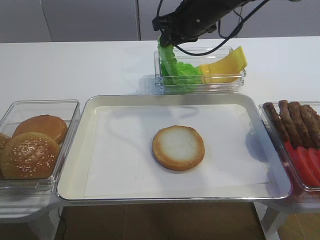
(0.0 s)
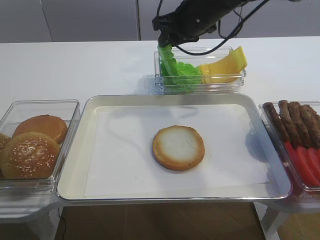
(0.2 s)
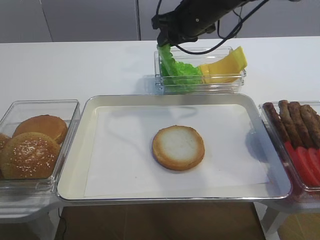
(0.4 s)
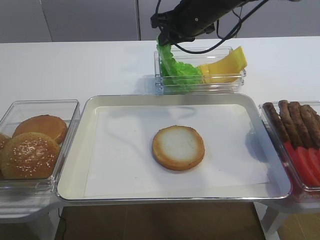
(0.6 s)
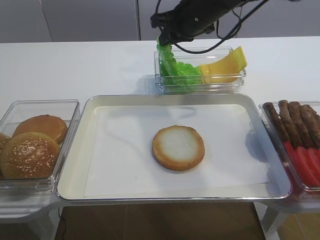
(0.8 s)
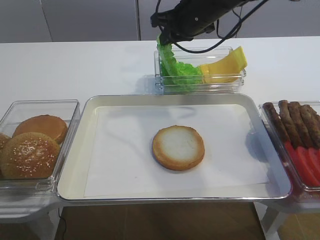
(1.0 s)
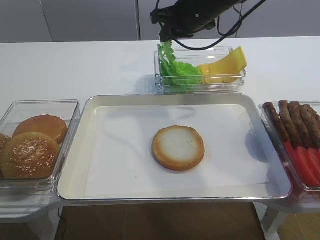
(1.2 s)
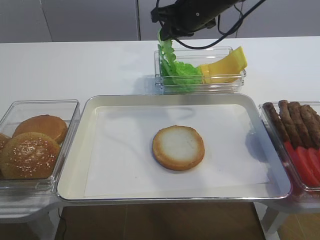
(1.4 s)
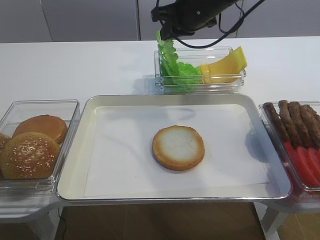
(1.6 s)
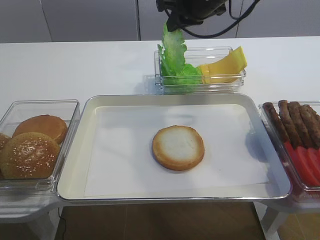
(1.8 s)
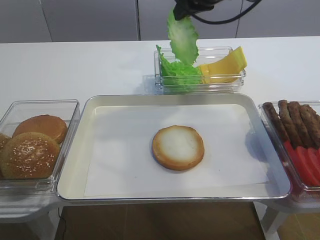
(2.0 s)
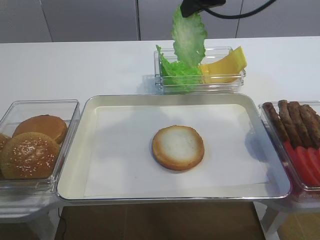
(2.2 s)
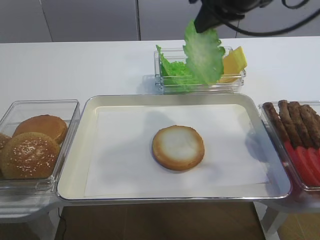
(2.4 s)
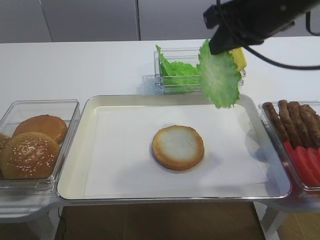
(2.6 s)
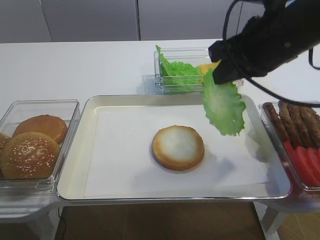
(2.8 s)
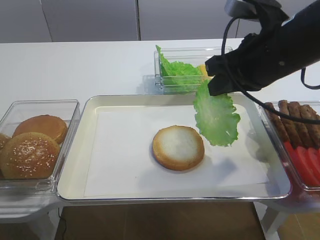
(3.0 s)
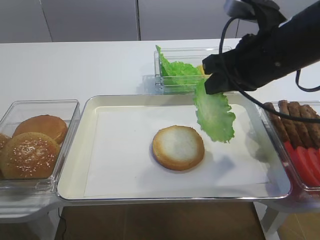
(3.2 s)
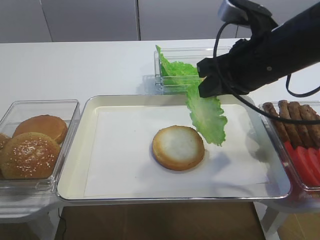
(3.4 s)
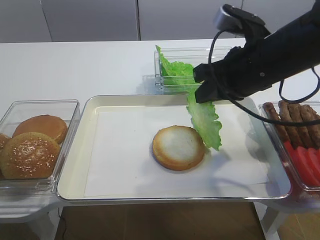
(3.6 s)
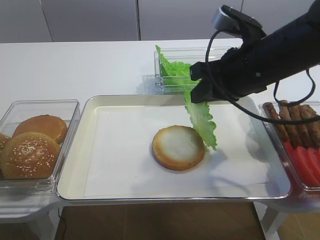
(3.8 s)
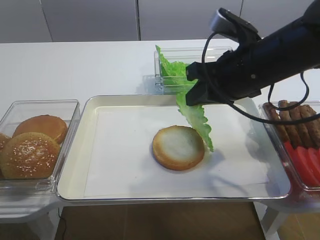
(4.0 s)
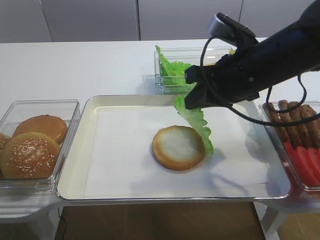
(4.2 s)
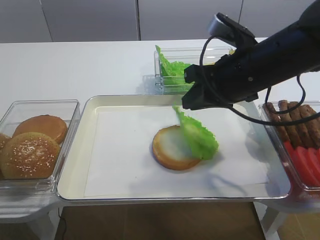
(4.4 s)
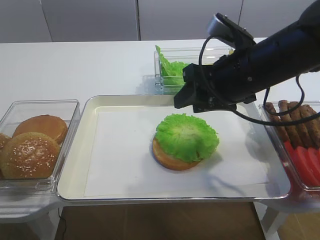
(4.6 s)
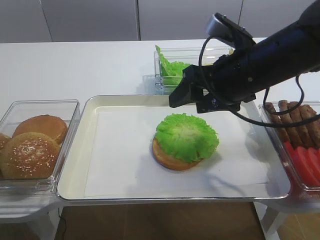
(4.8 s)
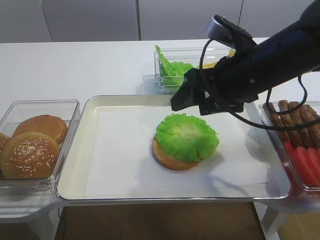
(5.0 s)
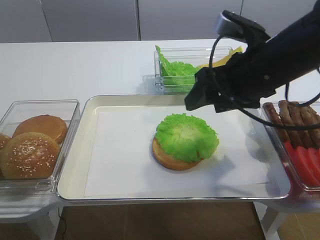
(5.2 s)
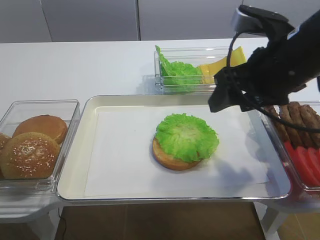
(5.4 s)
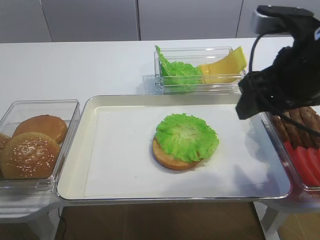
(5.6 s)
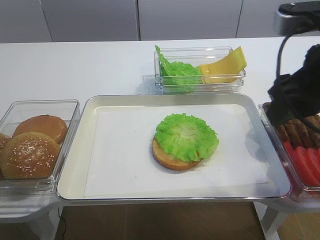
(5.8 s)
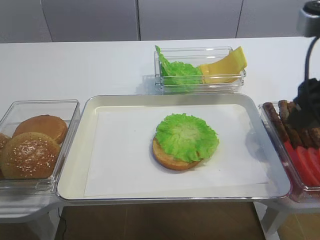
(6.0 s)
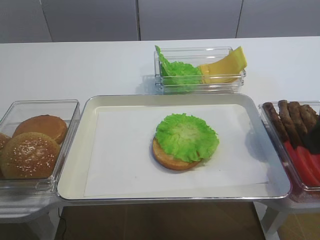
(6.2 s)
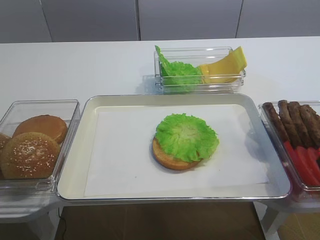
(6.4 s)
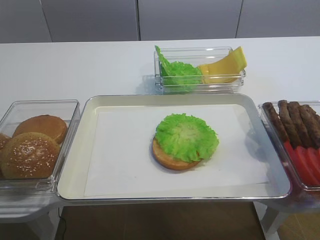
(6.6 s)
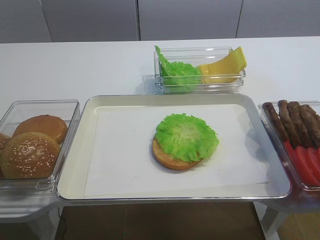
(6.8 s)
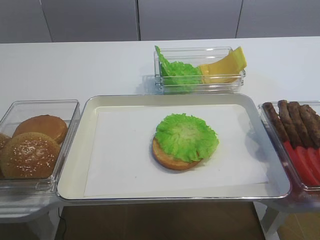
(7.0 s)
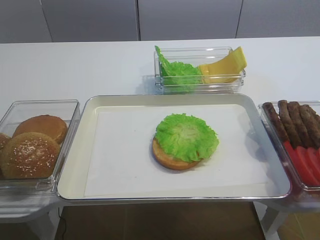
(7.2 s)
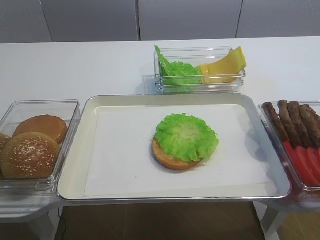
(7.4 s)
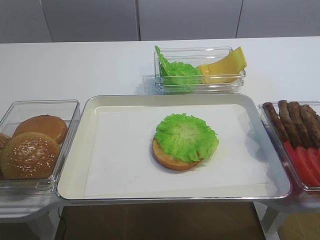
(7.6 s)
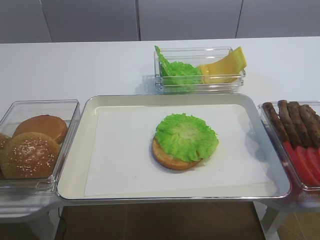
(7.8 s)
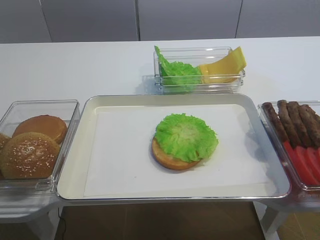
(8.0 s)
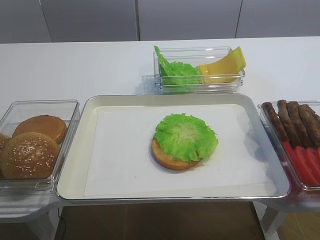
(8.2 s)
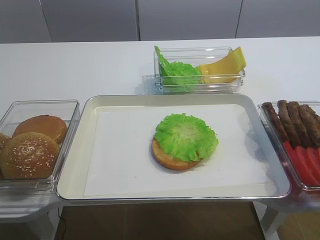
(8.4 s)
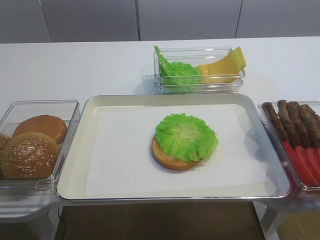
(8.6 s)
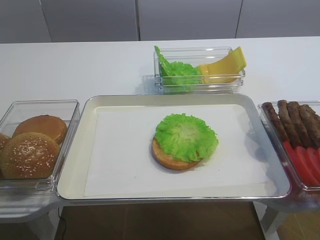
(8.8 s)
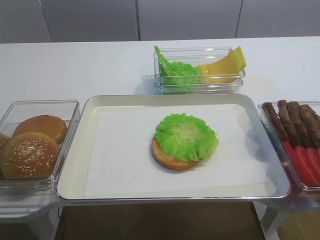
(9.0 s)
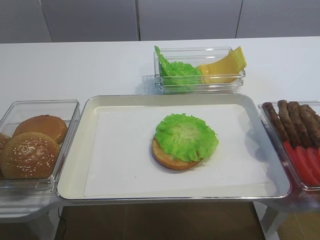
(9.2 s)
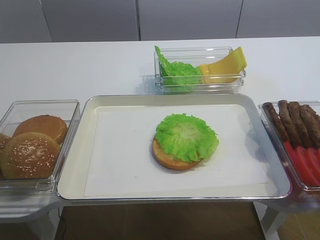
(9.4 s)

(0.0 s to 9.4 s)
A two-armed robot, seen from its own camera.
Step, 0.0 s - 2.0 s: Pick up the lettuce leaf with the right gripper.
Step, 2.2 s - 4.8 s: Place the lettuce leaf on the bread slice with the right gripper.
0.0 s - 1.6 s: There are only small adjustments of the grippers.
1.6 s - 3.2 s: The right gripper heads backward, covering roughly 15 cm.
3.2 s - 4.8 s: The right gripper opens.
4.8 s - 6.2 s: The right gripper travels backward, to the right and upward by approximately 15 cm.
6.2 s - 7.8 s: The right gripper travels backward by some 15 cm.

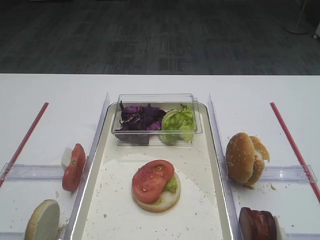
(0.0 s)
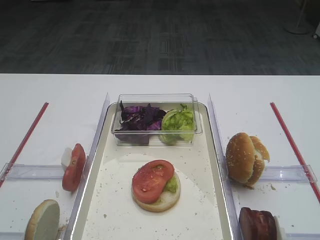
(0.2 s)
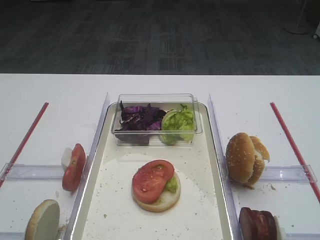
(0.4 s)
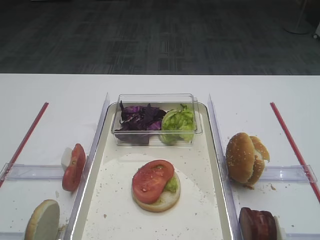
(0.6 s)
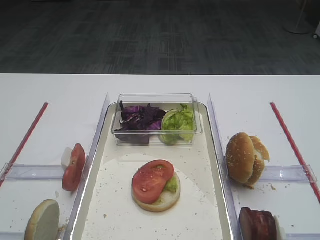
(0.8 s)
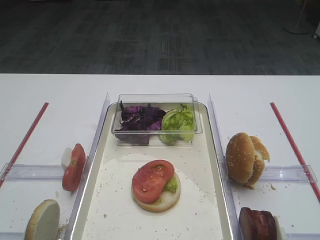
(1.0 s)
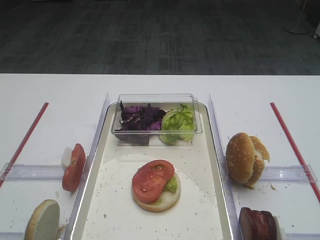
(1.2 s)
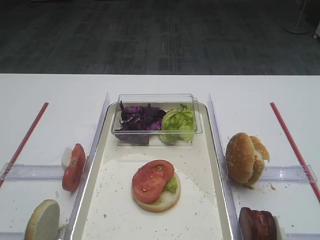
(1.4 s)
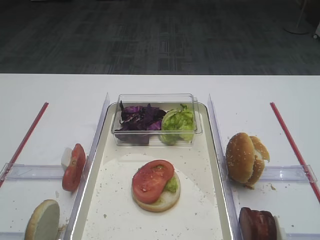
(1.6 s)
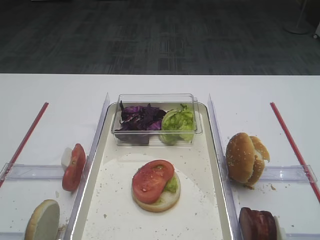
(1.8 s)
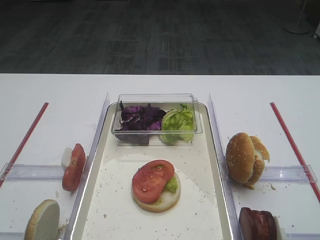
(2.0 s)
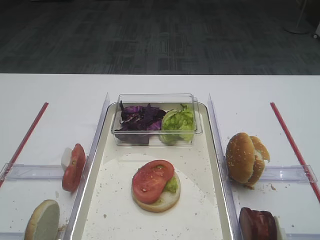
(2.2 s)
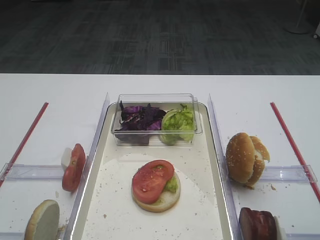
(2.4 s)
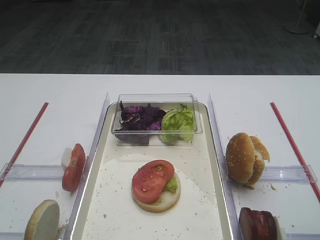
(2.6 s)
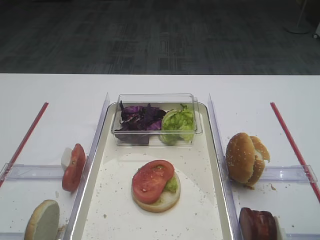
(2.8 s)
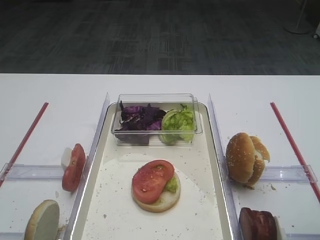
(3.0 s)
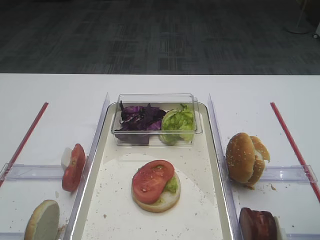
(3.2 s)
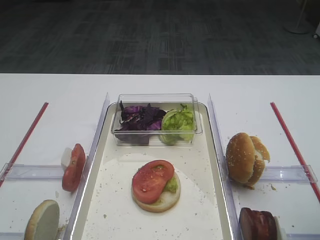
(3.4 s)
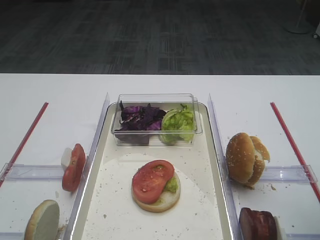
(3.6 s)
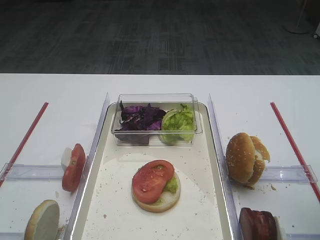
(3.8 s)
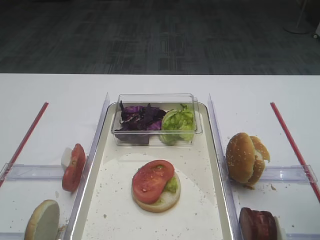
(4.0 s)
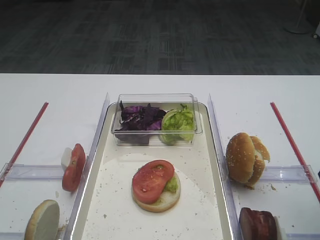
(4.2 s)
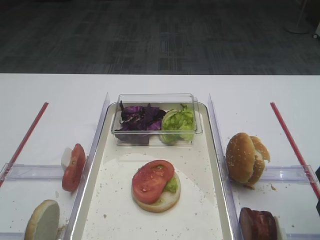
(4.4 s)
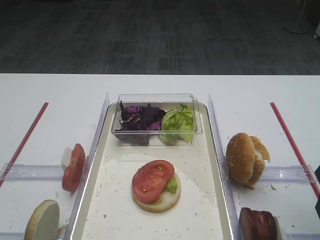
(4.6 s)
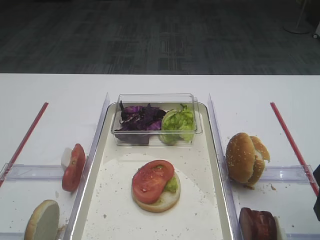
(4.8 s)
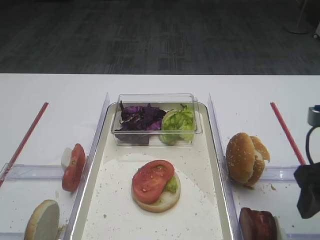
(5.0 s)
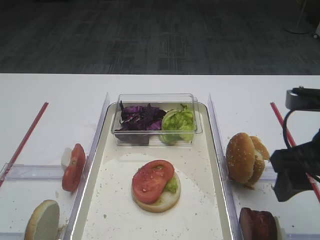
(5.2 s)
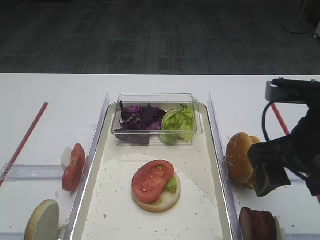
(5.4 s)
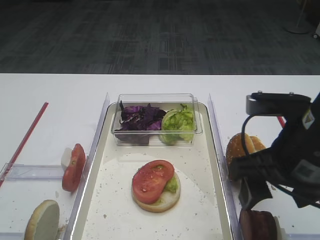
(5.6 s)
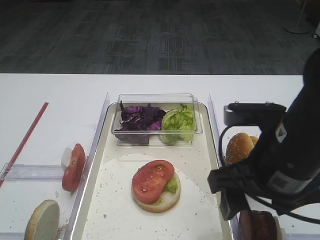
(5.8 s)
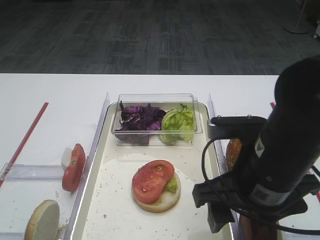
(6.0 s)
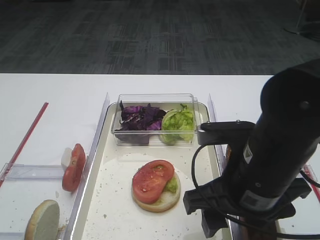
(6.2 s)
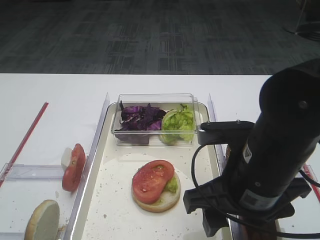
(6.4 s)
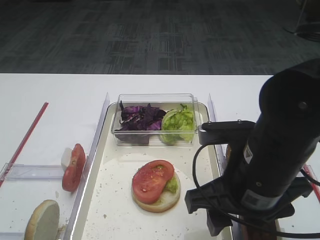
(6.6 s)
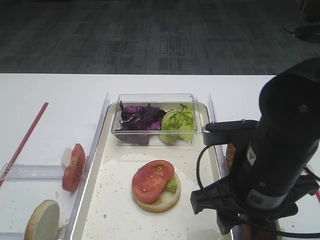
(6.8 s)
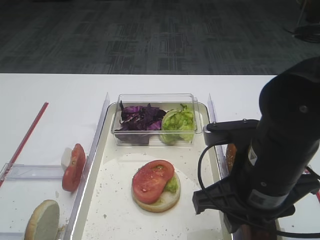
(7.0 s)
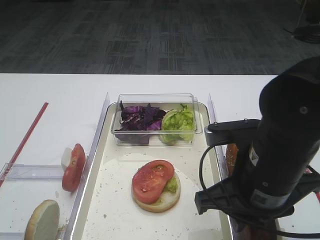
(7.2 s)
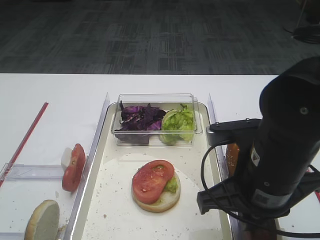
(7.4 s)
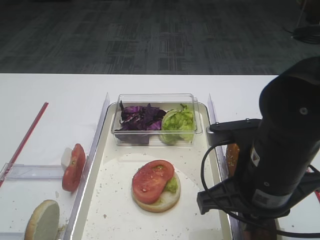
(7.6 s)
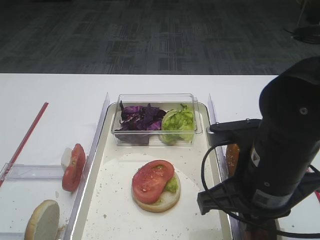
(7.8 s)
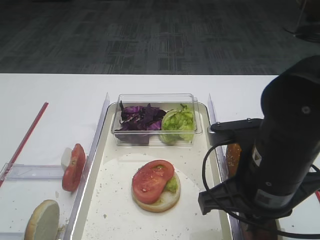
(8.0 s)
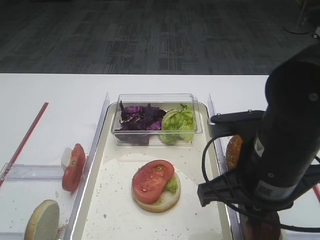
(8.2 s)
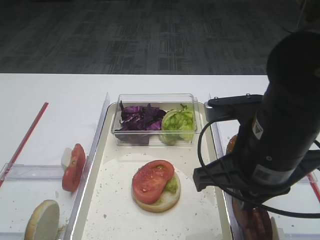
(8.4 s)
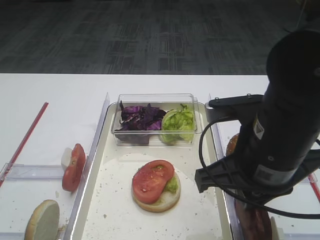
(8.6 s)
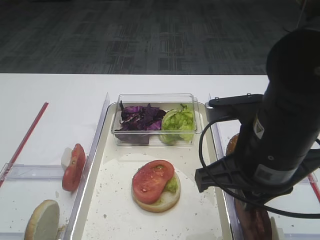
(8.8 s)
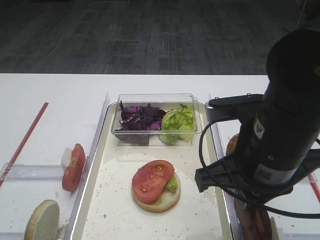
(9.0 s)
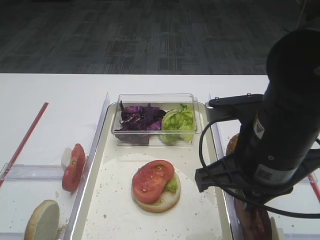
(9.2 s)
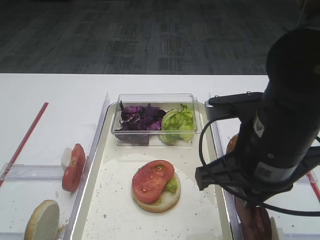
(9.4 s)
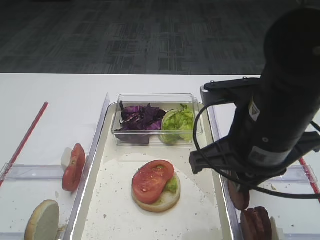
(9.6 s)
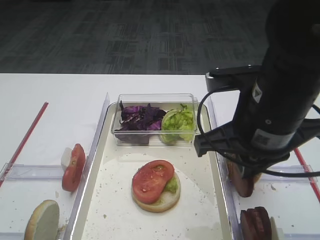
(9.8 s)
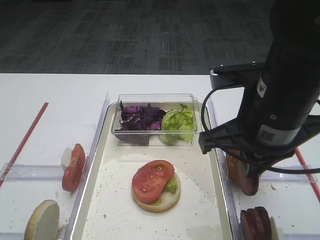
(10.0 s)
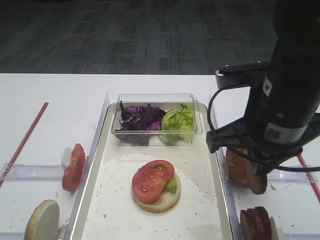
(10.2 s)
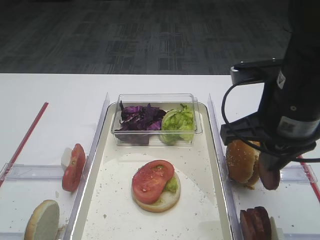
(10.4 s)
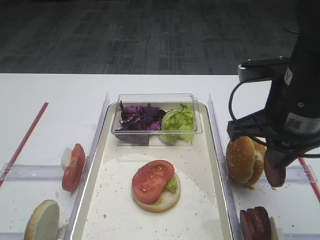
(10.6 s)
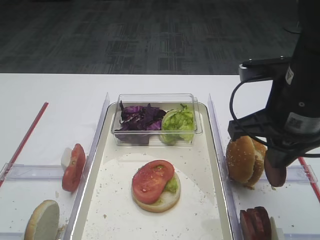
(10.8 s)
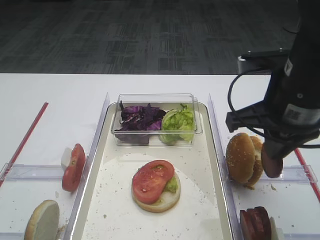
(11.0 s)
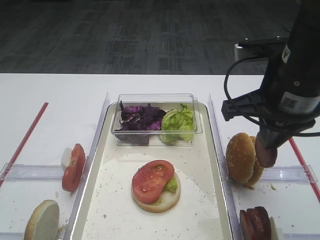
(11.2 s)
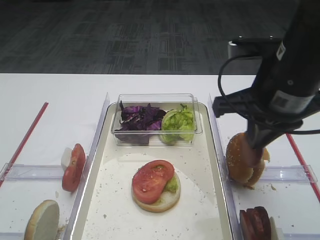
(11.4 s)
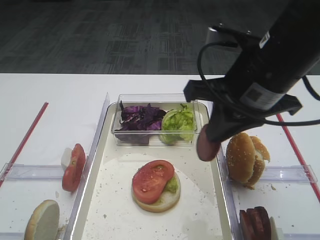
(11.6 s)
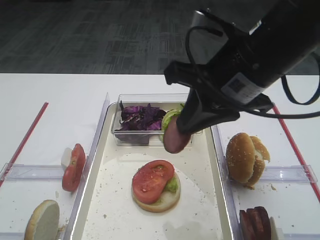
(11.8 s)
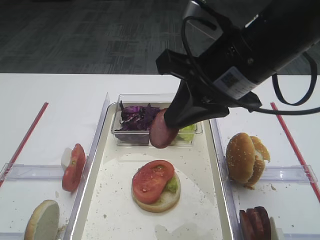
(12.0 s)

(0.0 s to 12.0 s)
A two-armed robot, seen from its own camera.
Step, 0.0 s - 9.4 s: Pick up the cutlet with the right gripper.
4.4 s - 6.0 s: The right gripper heads to the left, covering approximately 15 cm.
6.0 s - 7.6 s: The right gripper closes its fingers.
7.6 s - 9.0 s: The grippers make only small movements.
9.0 s - 10.4 s: The right gripper shifts by some 5 cm.
10.4 s - 12.0 s: The right gripper shifts approximately 5 cm to the left.

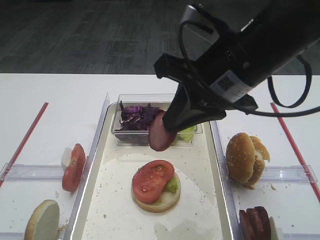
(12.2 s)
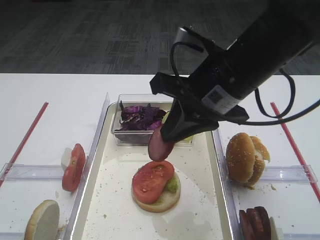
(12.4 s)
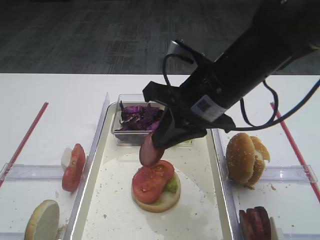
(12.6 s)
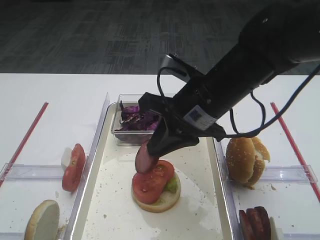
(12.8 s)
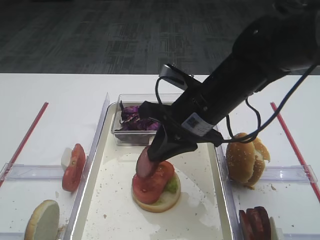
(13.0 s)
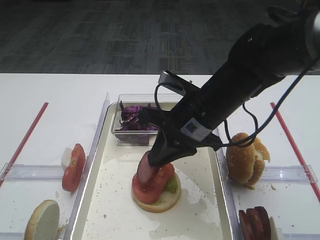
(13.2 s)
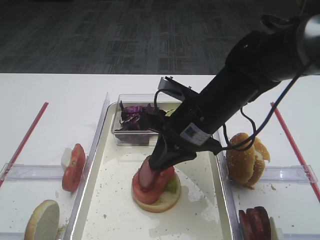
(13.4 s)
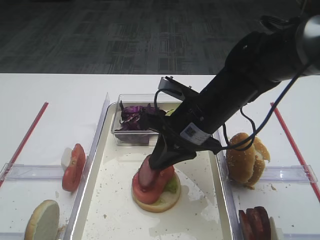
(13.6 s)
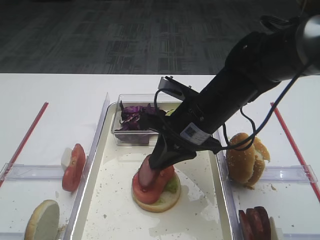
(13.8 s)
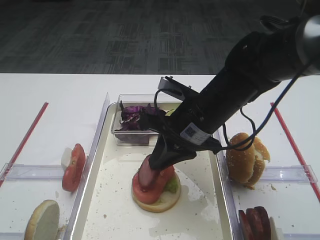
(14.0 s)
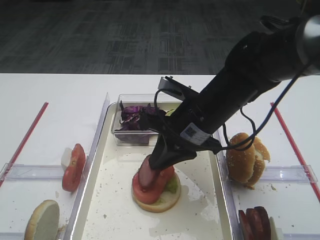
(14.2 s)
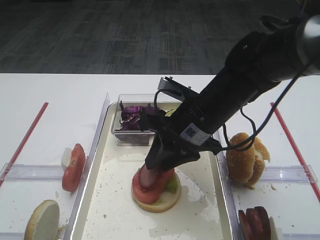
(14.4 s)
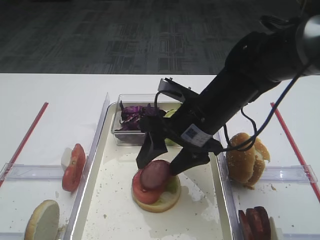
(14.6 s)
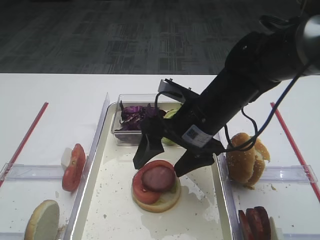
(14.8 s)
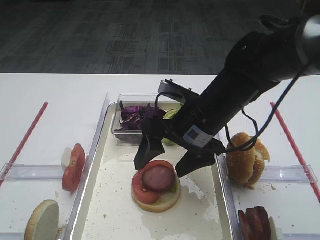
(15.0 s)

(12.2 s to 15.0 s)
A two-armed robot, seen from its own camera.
12.2 s - 13.6 s: The right gripper heads downward, covering roughly 10 cm.
13.6 s - 15.0 s: The right gripper opens its fingers.
